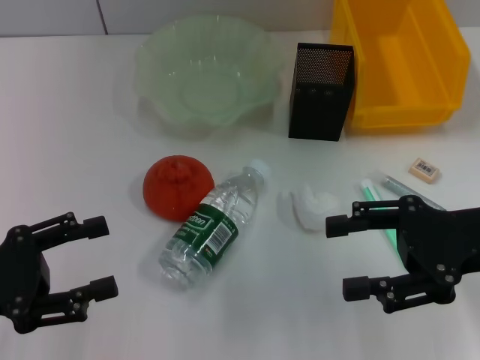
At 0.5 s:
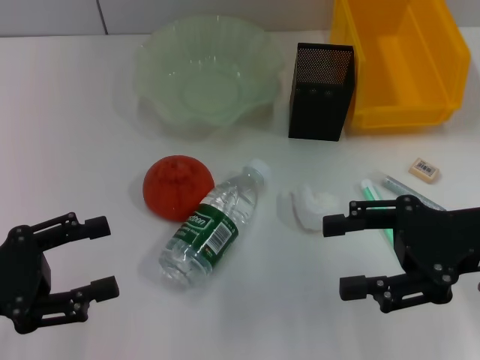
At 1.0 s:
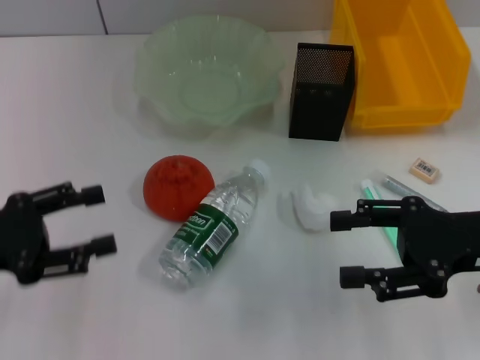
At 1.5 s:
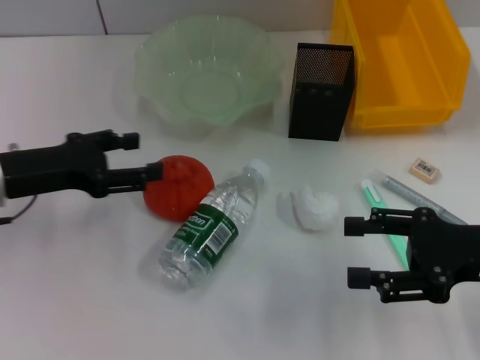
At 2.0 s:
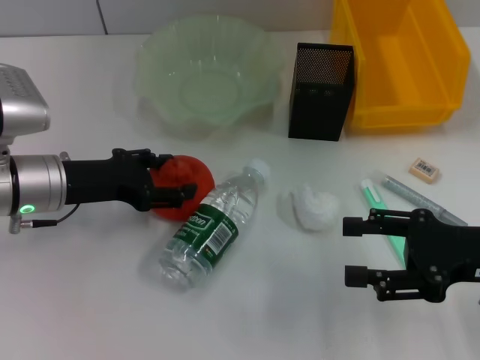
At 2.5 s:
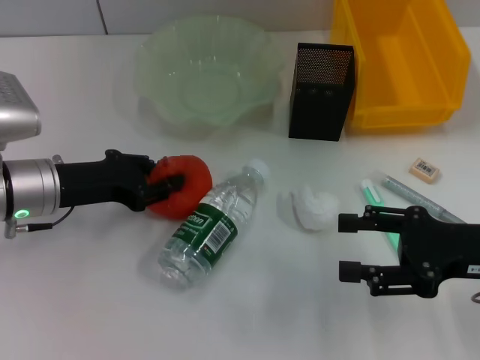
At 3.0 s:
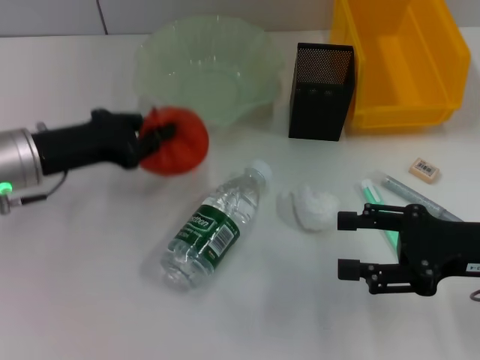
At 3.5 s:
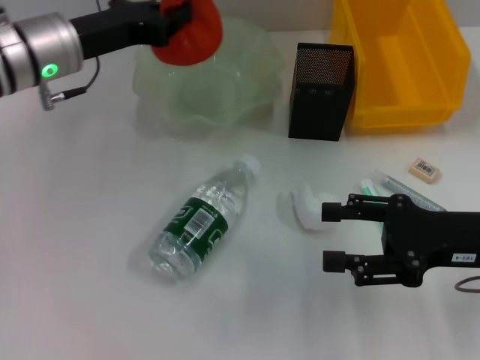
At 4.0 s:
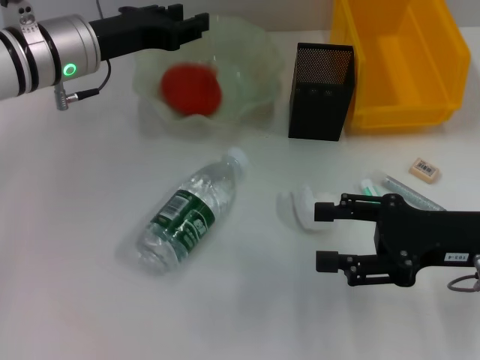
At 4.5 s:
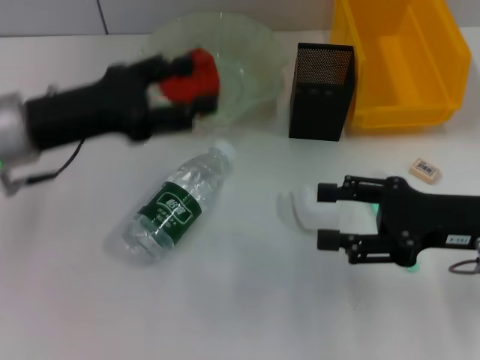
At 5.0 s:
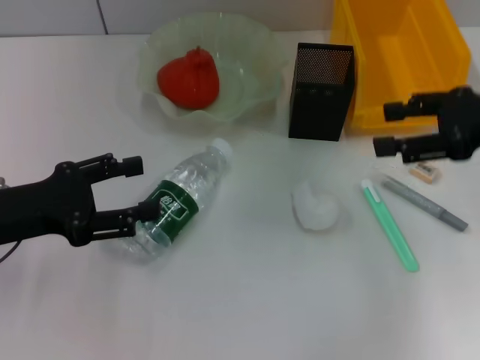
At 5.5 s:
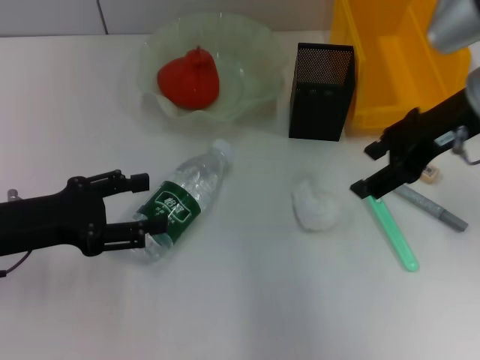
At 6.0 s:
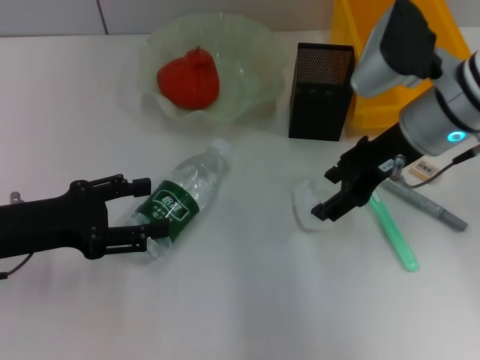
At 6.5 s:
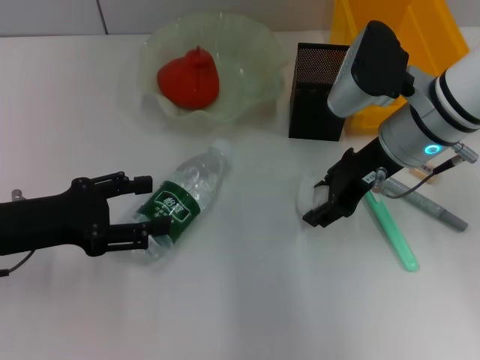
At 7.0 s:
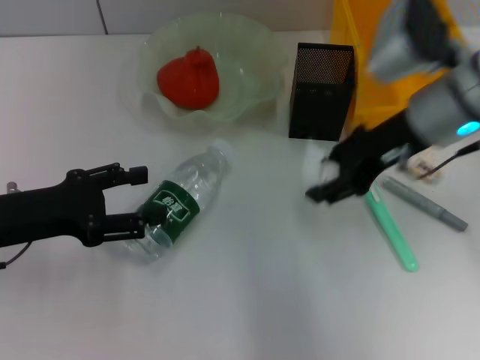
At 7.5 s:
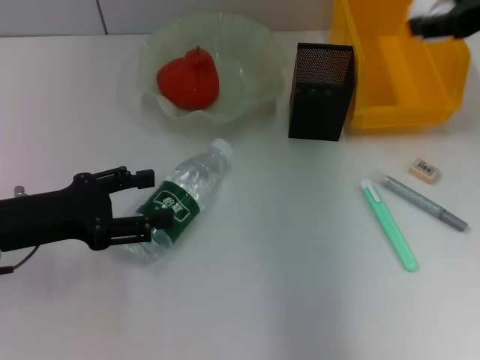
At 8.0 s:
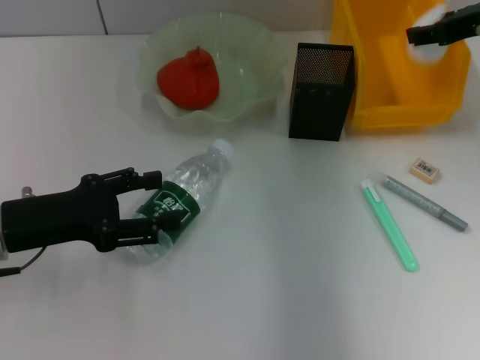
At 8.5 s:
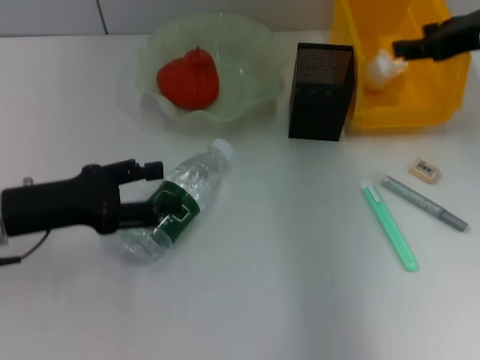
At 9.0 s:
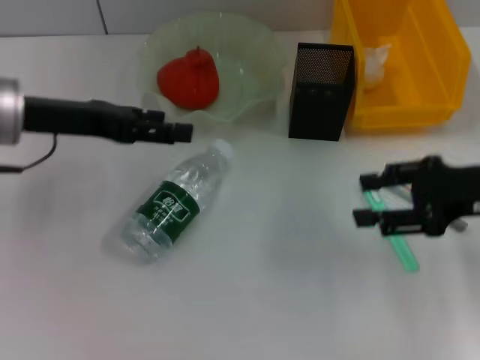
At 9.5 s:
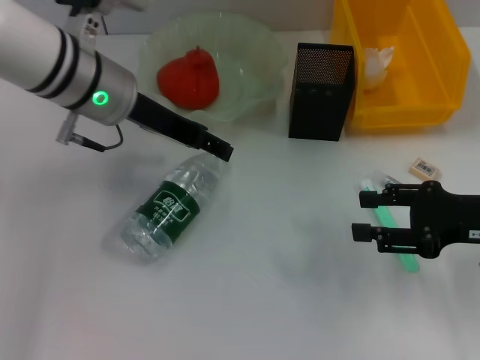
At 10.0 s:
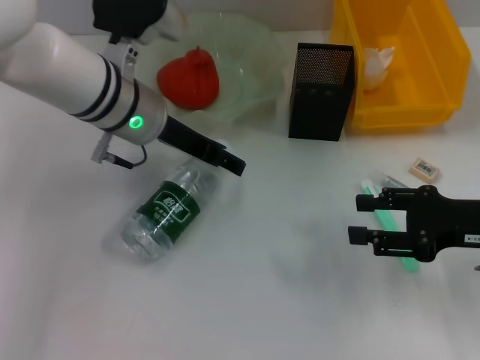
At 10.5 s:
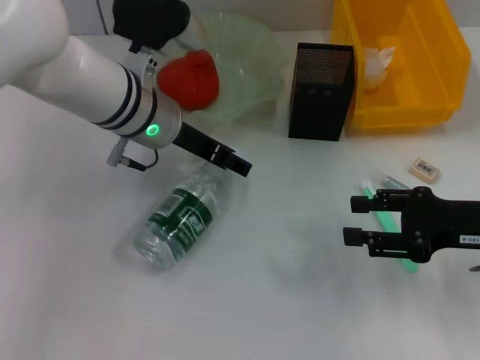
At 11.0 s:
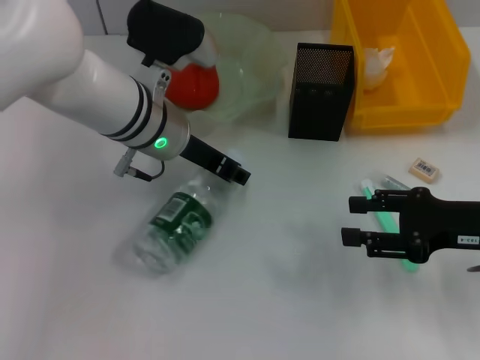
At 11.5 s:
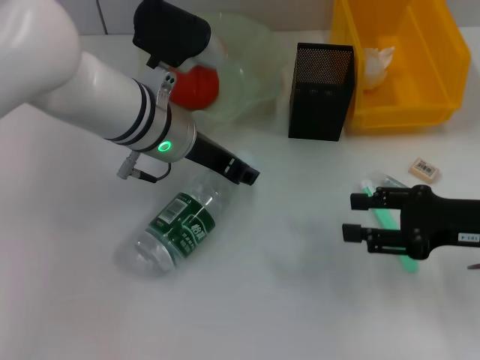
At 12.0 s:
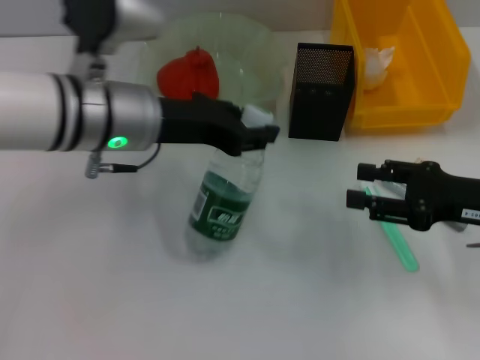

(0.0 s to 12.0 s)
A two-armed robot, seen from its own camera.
Step, 0.0 s - 2.5 s: Grab the orange with the left hand.
Step, 3.0 s - 4.0 s: Place the orange into the fruit bowl with the left hand.
Step, 4.5 s - 6.5 s: Grab the paper ball with the right hand.
Step, 7.0 s - 8.0 s: Place the paper ball into the trash can with the right hand.
Step, 8.5 s - 11.0 s: Grab the water bottle with the left hand.
0.0 s - 2.0 s: The left gripper goes roughly 15 cm forward and to the right.
2.0 s - 4.0 s: The left gripper moves forward and upward, approximately 10 cm, and closes up.
4.0 s - 6.0 s: The left gripper goes some 20 cm backward and to the left, and opens up, while the right gripper is displaced forward, to the left and upward by about 15 cm.
6.0 s - 8.0 s: The right gripper is displaced to the right and upward by approximately 10 cm.
8.0 s - 10.0 s: The right gripper travels backward and downward by some 20 cm; the left gripper goes roughly 20 cm to the right and forward.
10.0 s - 12.0 s: The left gripper is displaced backward by about 5 cm, and closes up.

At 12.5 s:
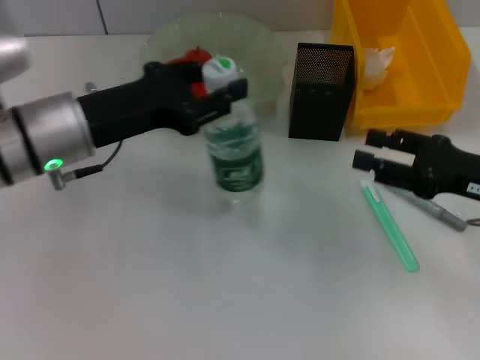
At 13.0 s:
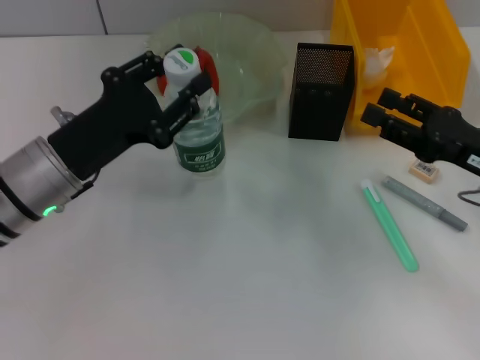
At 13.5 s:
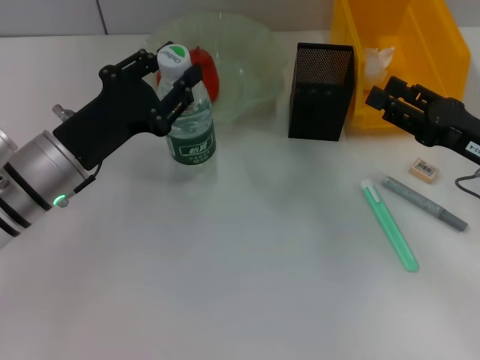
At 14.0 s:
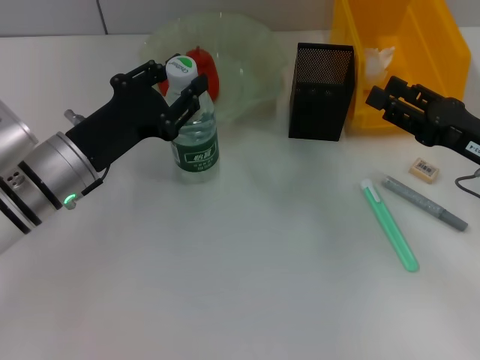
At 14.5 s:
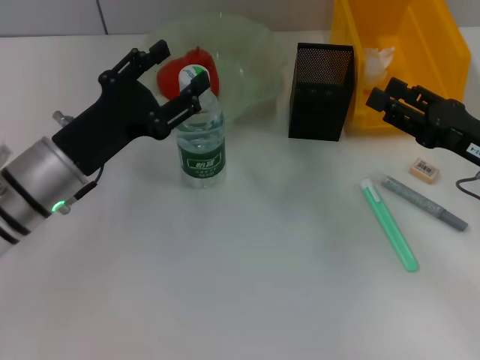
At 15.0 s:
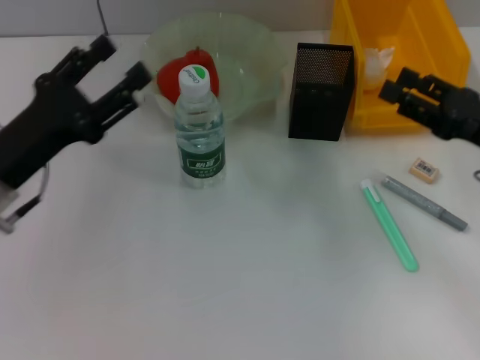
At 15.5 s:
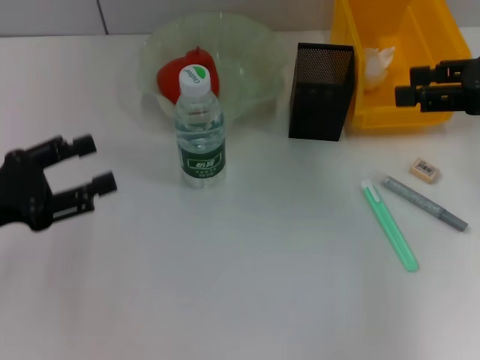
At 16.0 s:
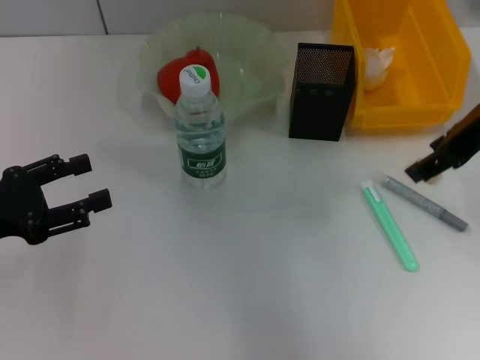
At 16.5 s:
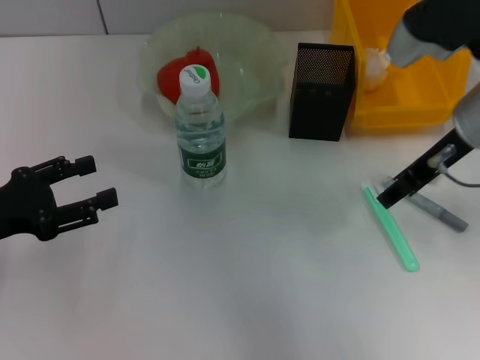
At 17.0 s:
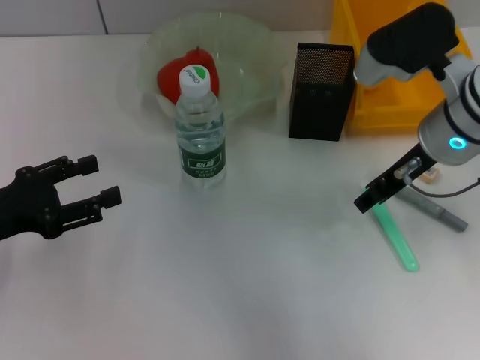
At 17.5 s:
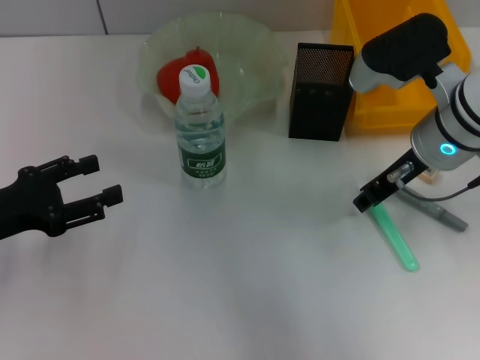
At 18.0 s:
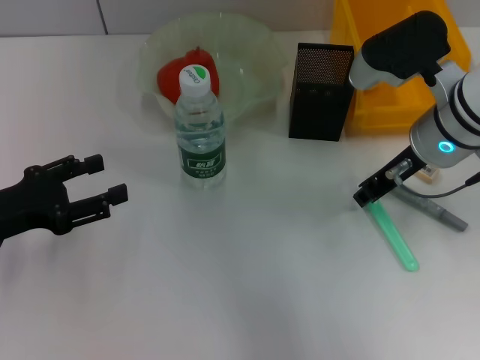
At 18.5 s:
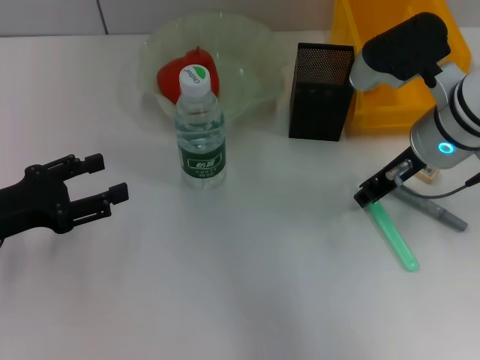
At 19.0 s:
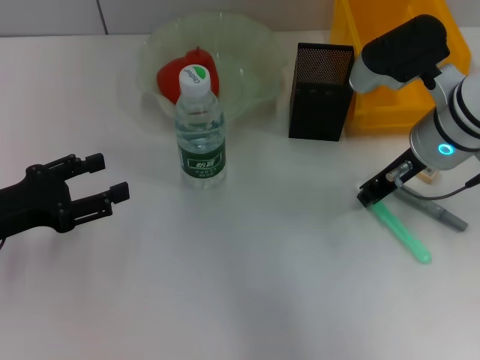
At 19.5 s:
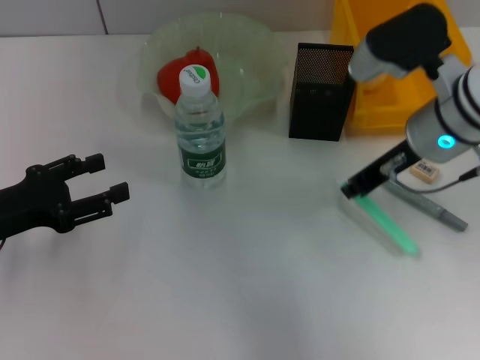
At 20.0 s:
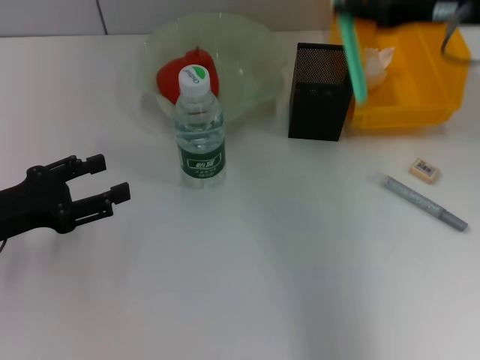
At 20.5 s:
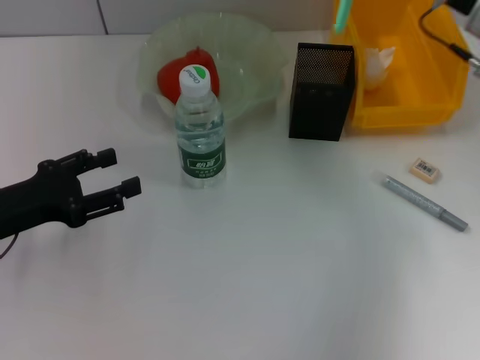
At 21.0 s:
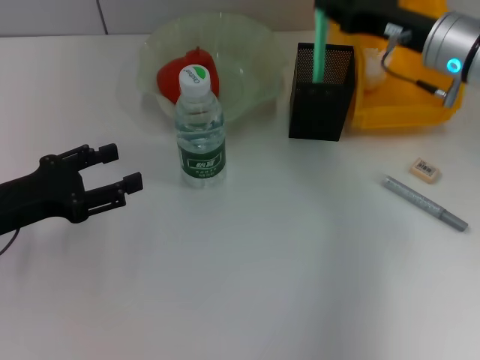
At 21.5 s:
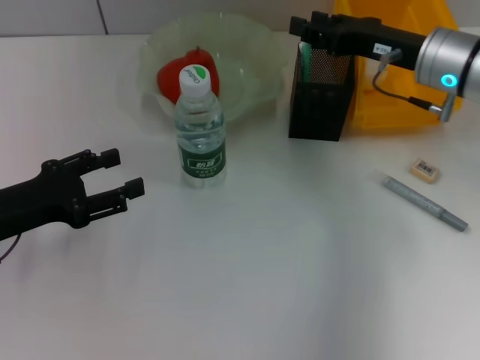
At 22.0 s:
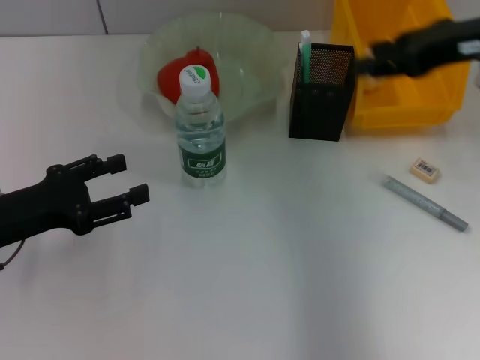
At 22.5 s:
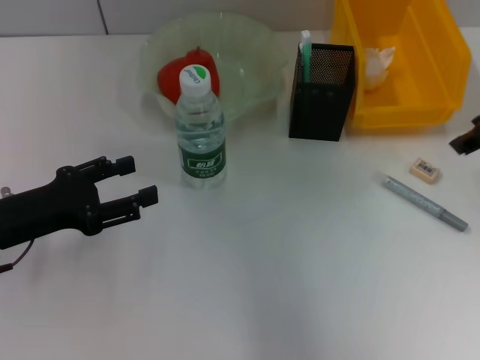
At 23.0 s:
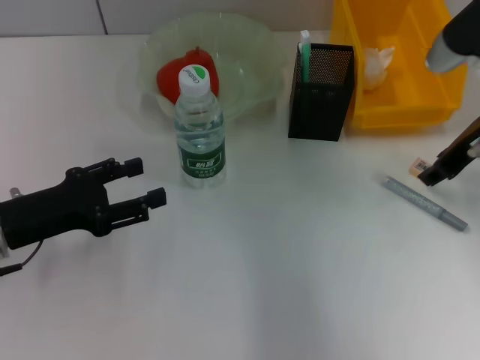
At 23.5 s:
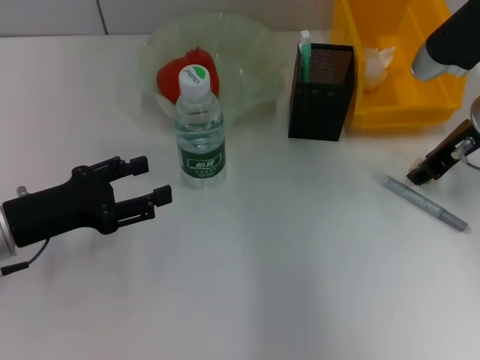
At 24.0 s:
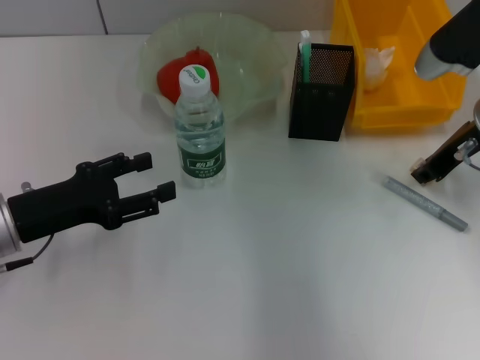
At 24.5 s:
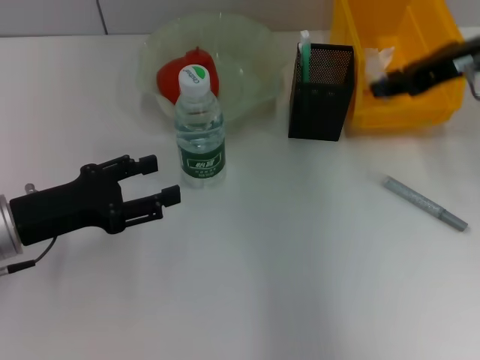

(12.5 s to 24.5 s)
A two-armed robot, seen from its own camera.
Step, 12.5 s - 14.5 s: Place the water bottle on the table with the left hand.
Step, 15.0 s - 19.0 s: Grab the blue utility knife with the right hand.
Step, 19.5 s - 21.5 s: Place the blue utility knife into the pen holder with the right hand.
Step, 22.0 s - 23.5 s: Grab the eraser with the right hand.
12.5 s - 14.5 s: The left gripper is displaced downward by approximately 5 cm, and opens.
14.5 s - 16.5 s: The right gripper shifts approximately 15 cm upward, to the left and forward. The left gripper shifts about 15 cm to the left and backward.
16.5 s - 18.5 s: The right gripper changes place by roughly 5 cm, and closes.
18.5 s - 20.5 s: The right gripper shifts about 10 cm to the right and forward, and goes upward and returns, some 10 cm each way.
20.5 s - 22.5 s: The right gripper shifts about 5 cm upward, and opens its fingers.
22.5 s - 24.5 s: The right gripper travels downward and back again, some 10 cm each way, and closes up.

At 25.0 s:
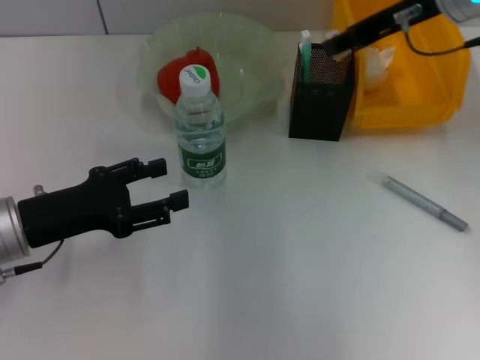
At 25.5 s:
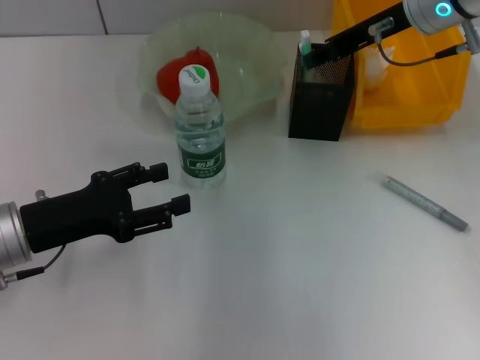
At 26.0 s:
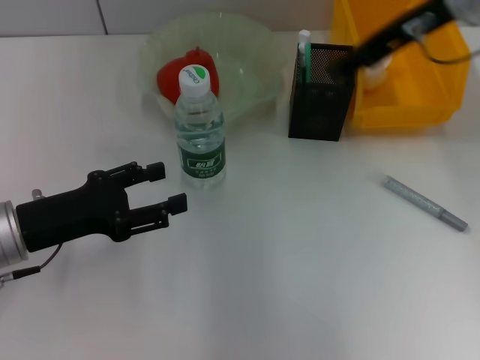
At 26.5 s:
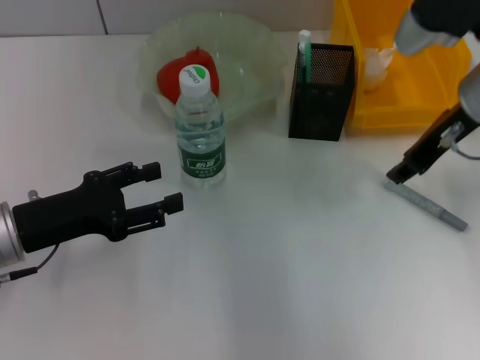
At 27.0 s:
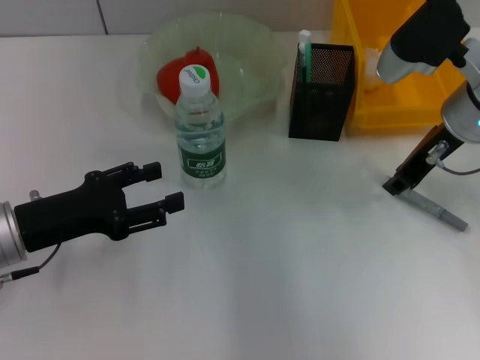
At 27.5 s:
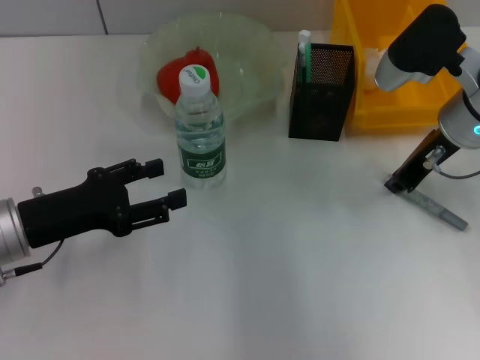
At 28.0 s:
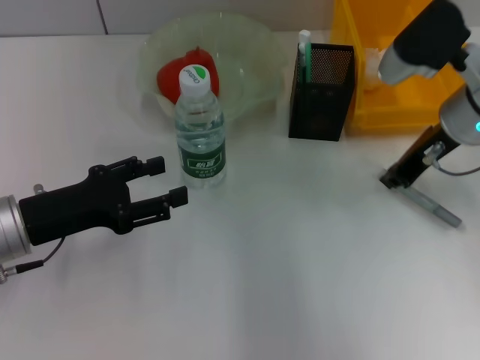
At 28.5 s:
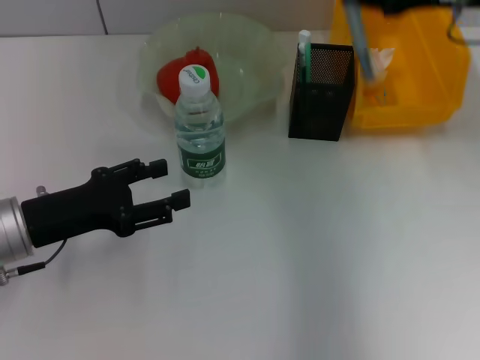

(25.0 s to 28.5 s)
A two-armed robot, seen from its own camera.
Step, 26.0 s - 27.5 s: Grab the gray glue with the right hand.
25.0 s - 27.0 s: The right gripper heads downward, covering roughly 10 cm.
27.0 s - 28.5 s: The right gripper heads upward, covering some 10 cm, and closes up.
